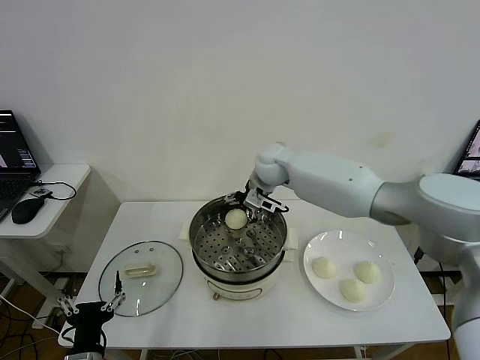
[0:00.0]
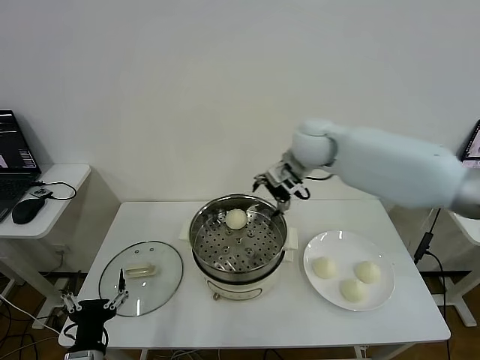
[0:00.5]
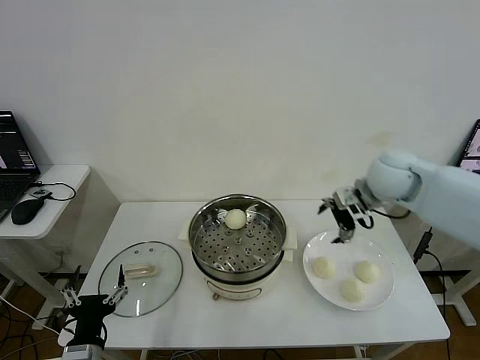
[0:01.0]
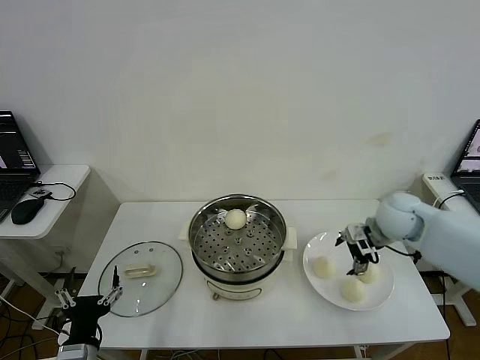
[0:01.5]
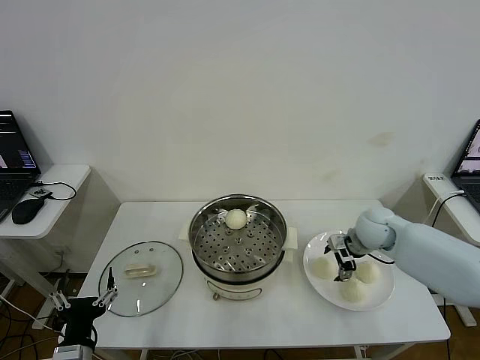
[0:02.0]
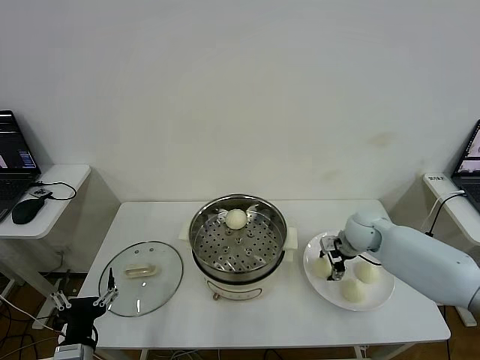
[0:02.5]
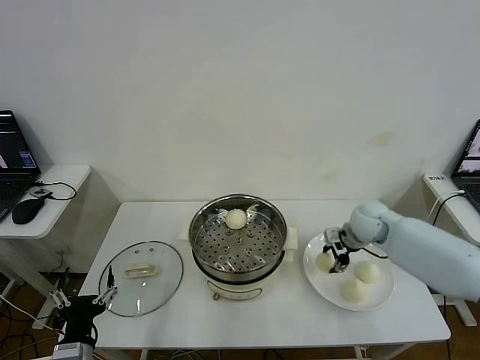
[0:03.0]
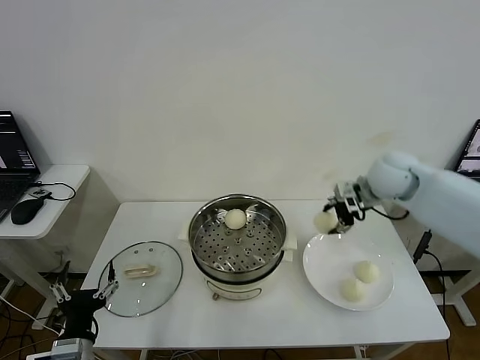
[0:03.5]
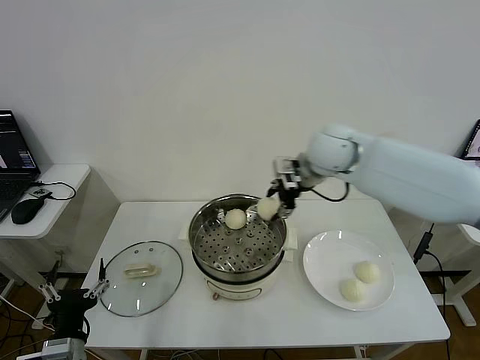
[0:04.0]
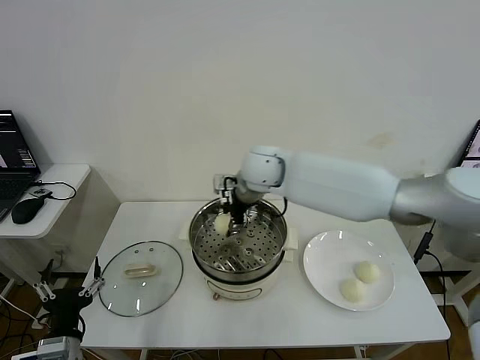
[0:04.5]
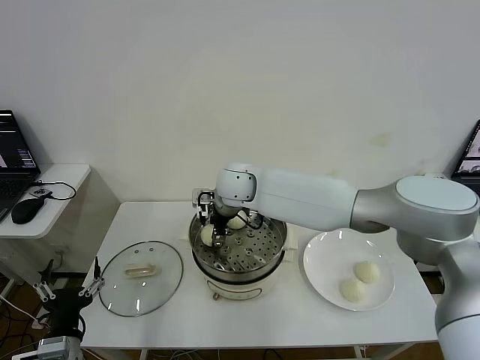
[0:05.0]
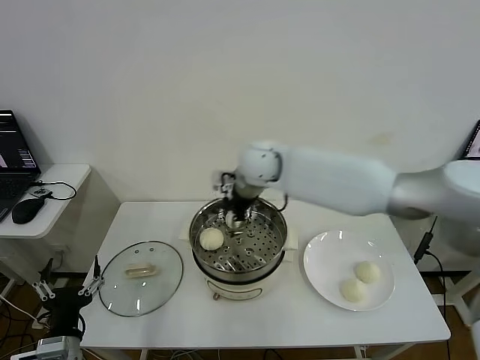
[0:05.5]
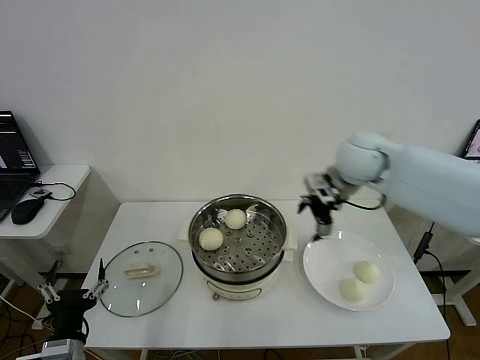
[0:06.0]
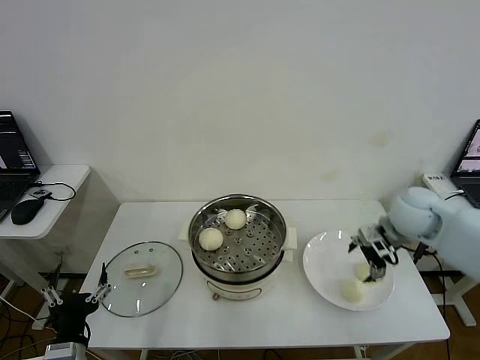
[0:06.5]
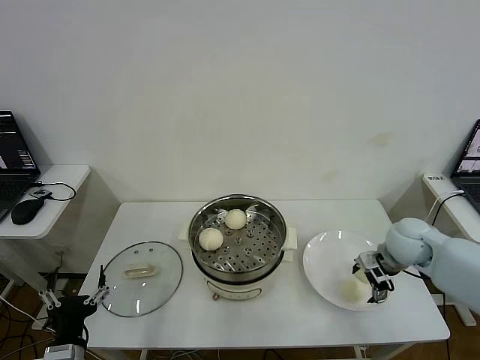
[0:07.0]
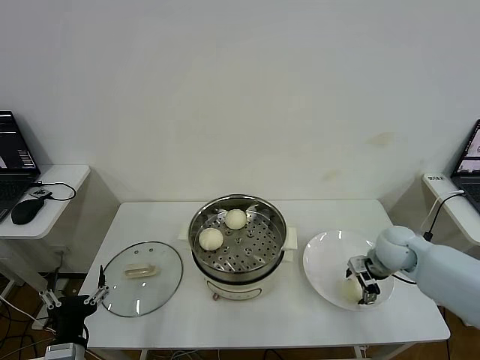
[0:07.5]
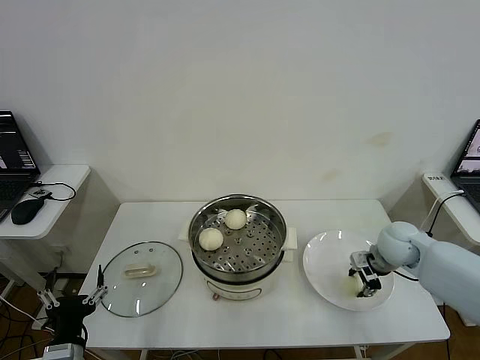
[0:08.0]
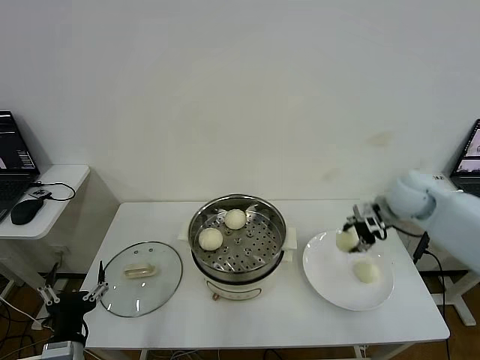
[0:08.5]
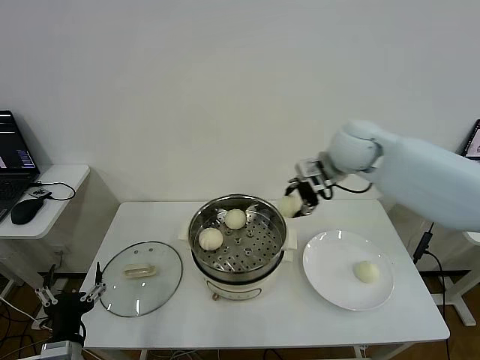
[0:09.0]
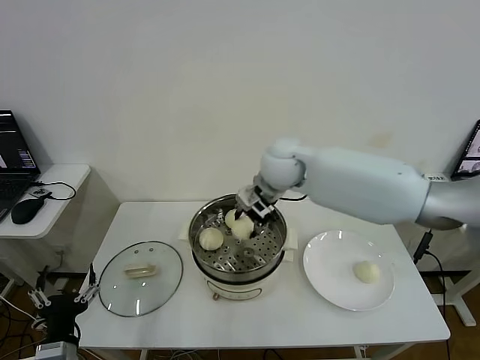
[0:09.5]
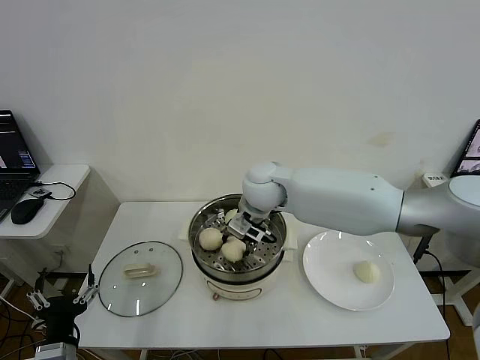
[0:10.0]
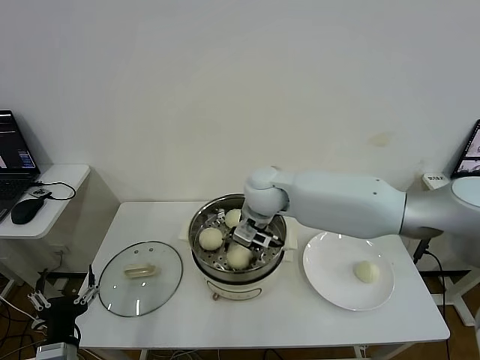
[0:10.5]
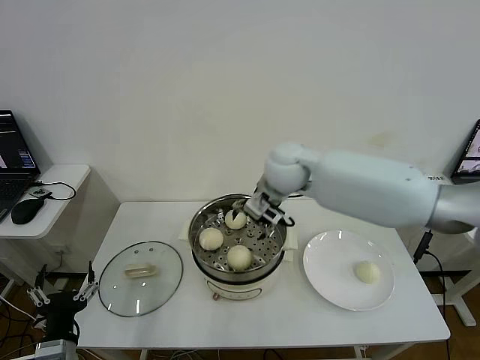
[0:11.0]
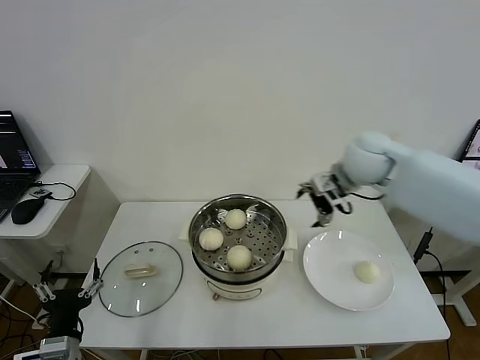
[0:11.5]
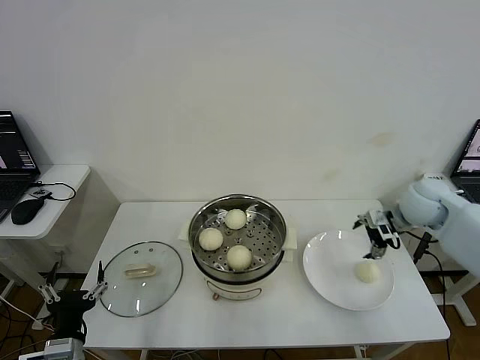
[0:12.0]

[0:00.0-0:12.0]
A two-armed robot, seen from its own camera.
Step, 0:00.0 to 0:02.5: Grasp the baozi in the plate with right gripper.
Step, 0:03.0 to 0:05.0: Place the baozi on the steamer with right gripper.
Step, 0:05.5 to 0:08.0: Grasp the baozi in the plate with right gripper.
Step, 0:08.5 to 0:10.5: Place the baozi on the steamer with right gripper.
0:00.0 to 0:02.0: The right gripper is displaced to the right, downward and backward by some 30 cm.
0:02.0 to 0:04.0: The right gripper moves upward and to the left, approximately 25 cm, and closes up.
0:04.0 to 0:06.0: The right gripper moves to the right, about 15 cm, and opens its fingers.
0:06.0 to 0:08.0: The right gripper moves downward and to the right, about 20 cm, and closes its fingers.
0:08.0 to 0:10.0: The right gripper travels to the left by roughly 30 cm.
0:10.0 to 0:12.0: The right gripper is displaced to the right by approximately 35 cm, and opens.

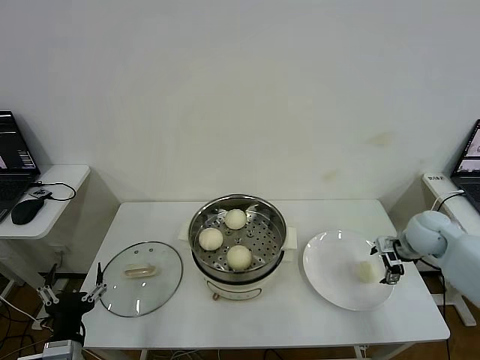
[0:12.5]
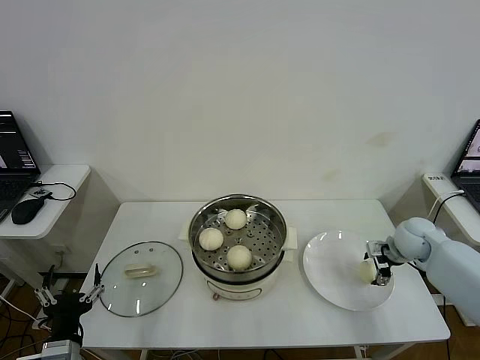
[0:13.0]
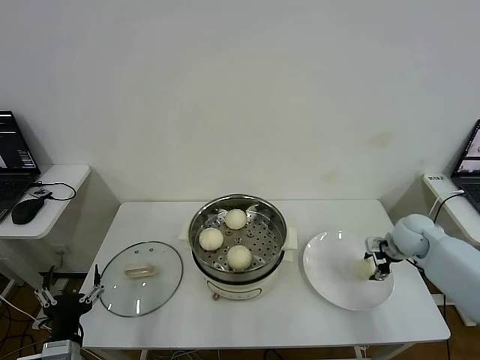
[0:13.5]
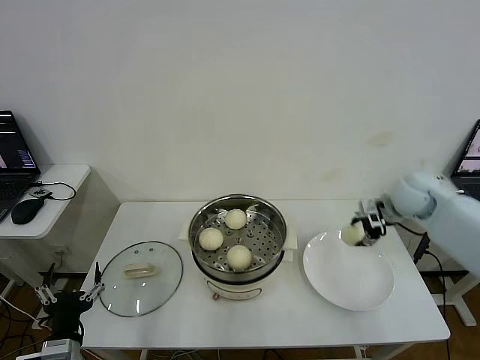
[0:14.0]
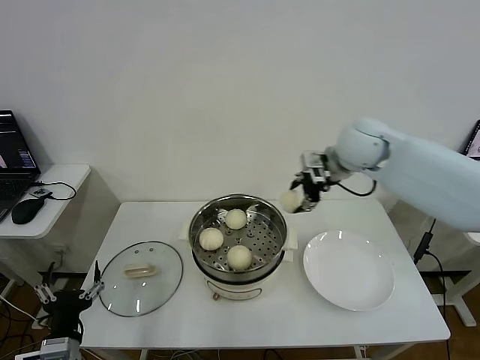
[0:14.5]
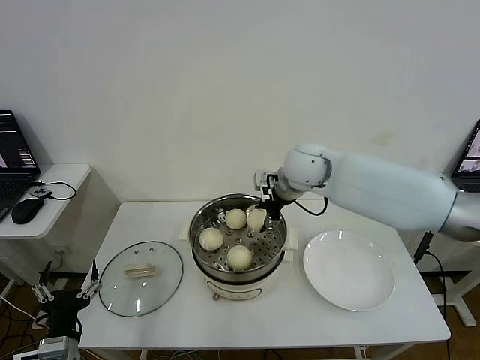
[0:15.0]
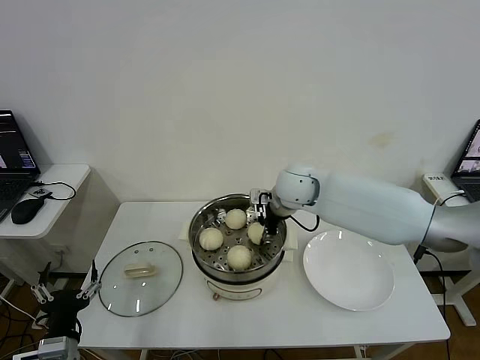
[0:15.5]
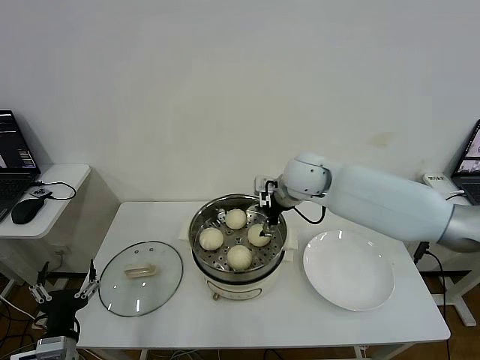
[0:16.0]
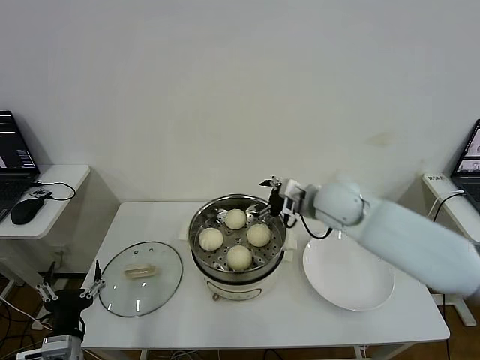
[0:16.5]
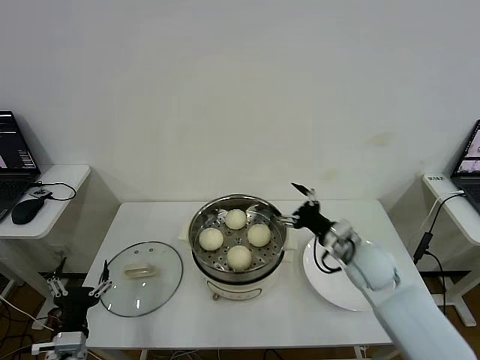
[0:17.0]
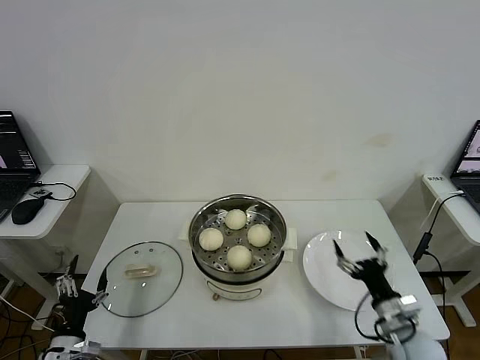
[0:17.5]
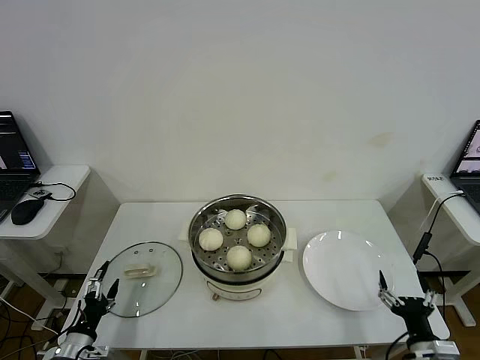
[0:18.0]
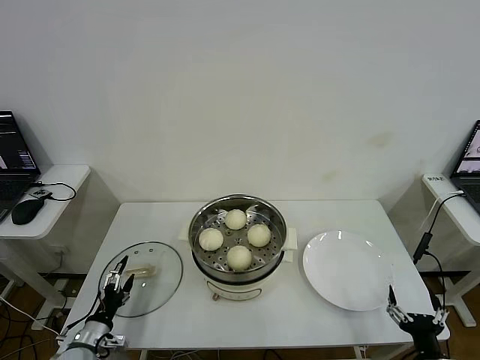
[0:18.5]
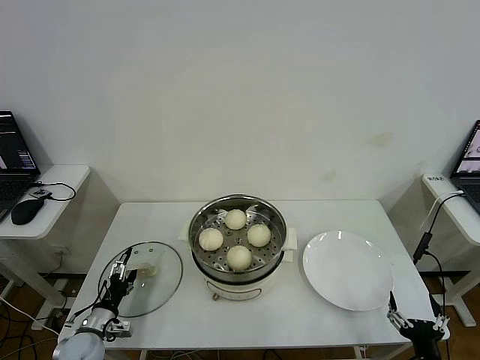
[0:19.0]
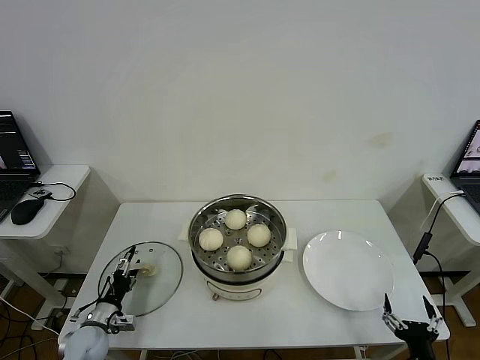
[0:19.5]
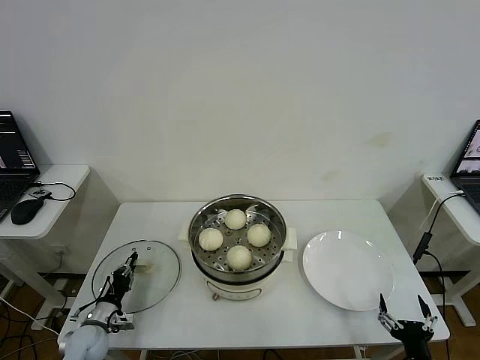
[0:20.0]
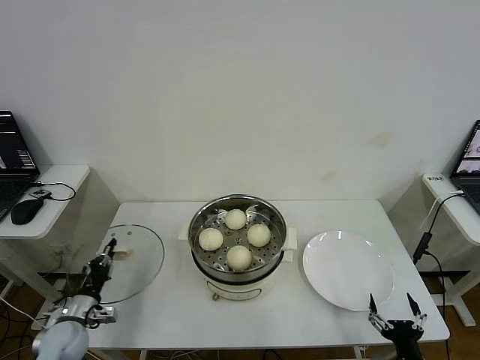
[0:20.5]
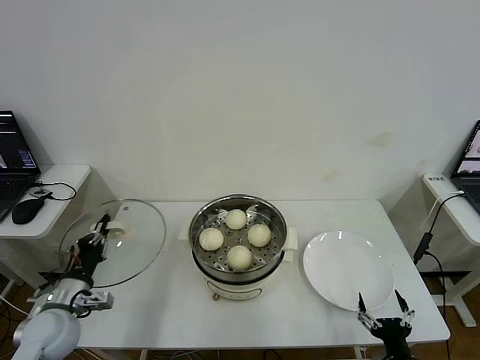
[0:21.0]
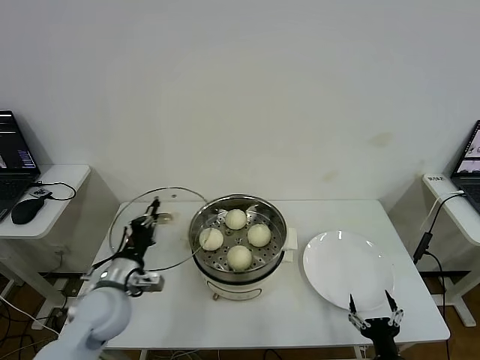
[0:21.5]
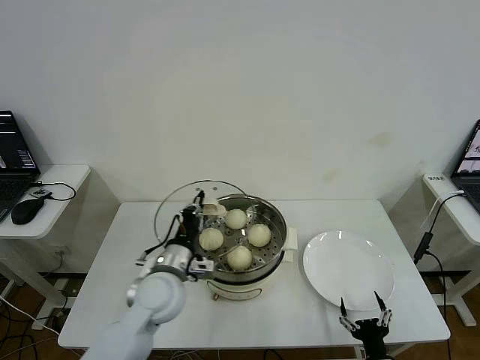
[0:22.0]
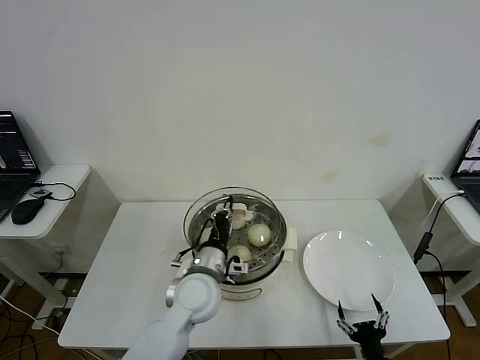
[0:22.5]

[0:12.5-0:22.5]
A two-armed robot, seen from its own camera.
Step, 0:14.0 to 0:15.5: Place the baozi on the steamer with right gripper.
Step, 0:16.0 to 0:20.0: Grasp the pot lid with left gripper.
0:12.5 to 0:14.5: The right gripper shifts roughly 30 cm to the left and upward, and closes.
0:14.5 to 0:16.5: The right gripper is displaced downward and backward by roughly 10 cm, and opens.
0:16.5 to 0:18.5: The left gripper heads downward, forward and to the left, covering some 15 cm. The right gripper heads backward, downward and to the right, covering some 40 cm.
0:18.5 to 0:20.5: The left gripper heads forward, covering about 5 cm, and closes its fingers.
0:20.5 to 0:22.5: The right gripper ends up roughly 5 cm from where it was. Meanwhile the left gripper goes some 35 cm to the right and upward.

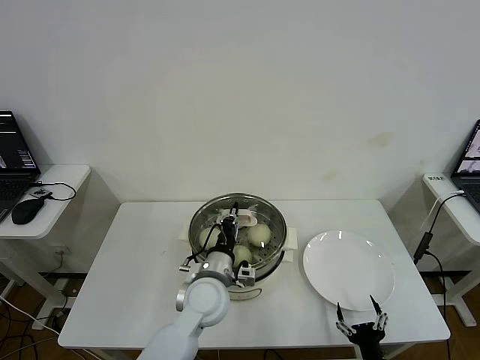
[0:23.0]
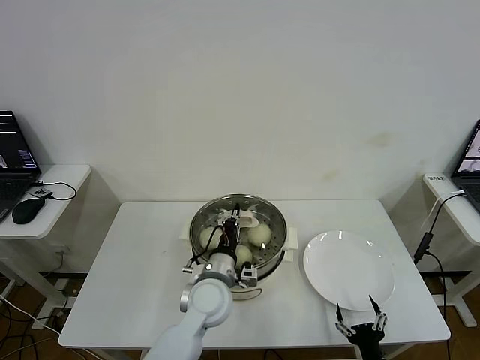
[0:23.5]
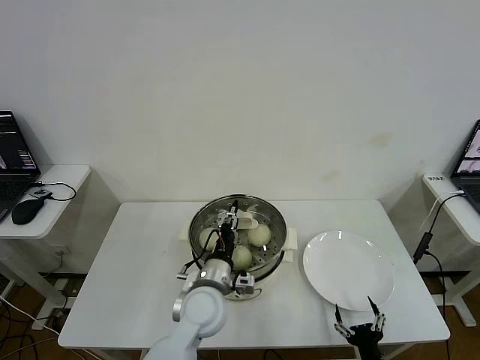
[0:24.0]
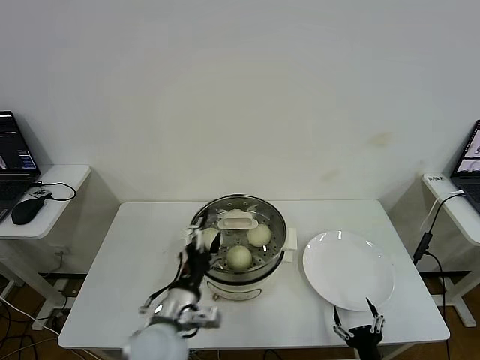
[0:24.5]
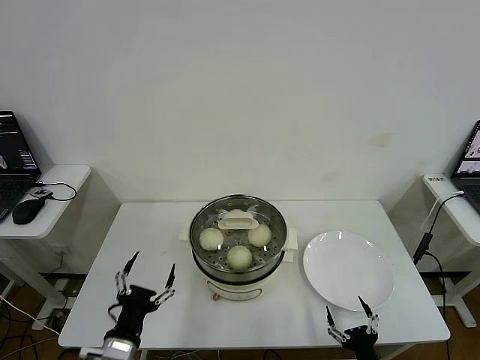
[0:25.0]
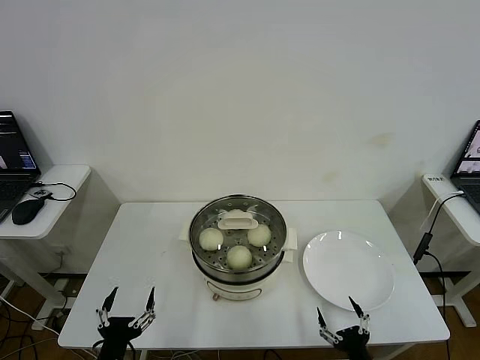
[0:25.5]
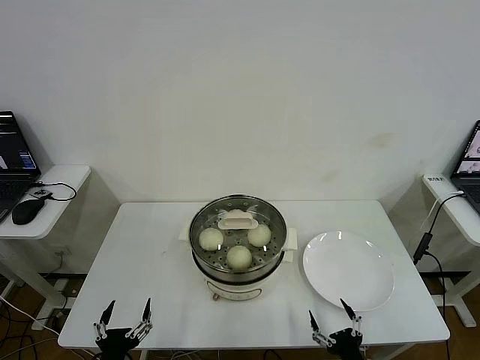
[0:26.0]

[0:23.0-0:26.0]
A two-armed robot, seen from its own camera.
0:23.0 to 0:24.5: The left gripper is displaced backward and to the left by some 10 cm, and opens its fingers.
0:24.5 to 0:26.0: The left gripper is displaced backward, to the left and downward by roughly 20 cm.
